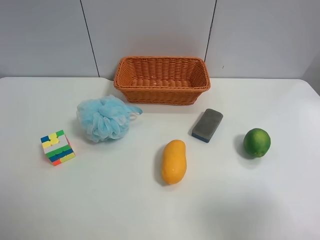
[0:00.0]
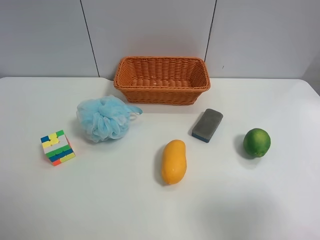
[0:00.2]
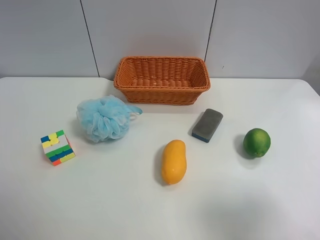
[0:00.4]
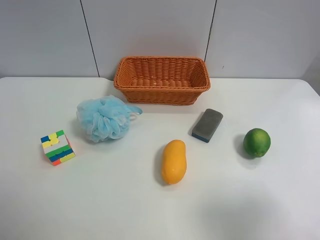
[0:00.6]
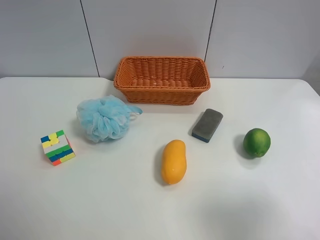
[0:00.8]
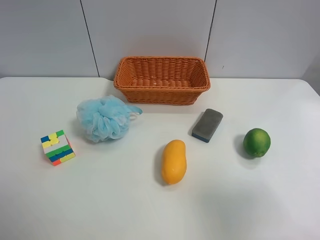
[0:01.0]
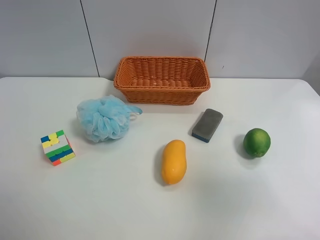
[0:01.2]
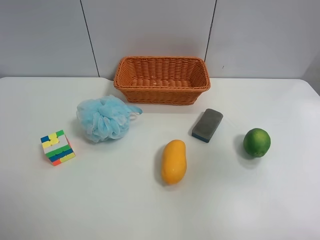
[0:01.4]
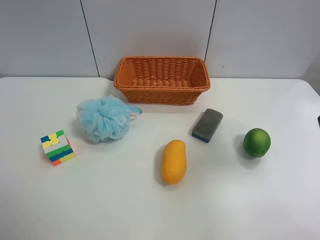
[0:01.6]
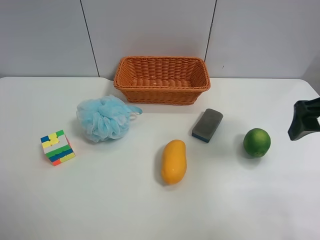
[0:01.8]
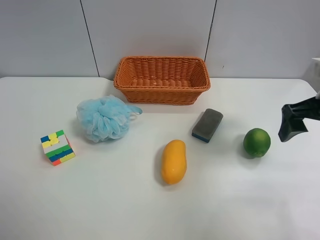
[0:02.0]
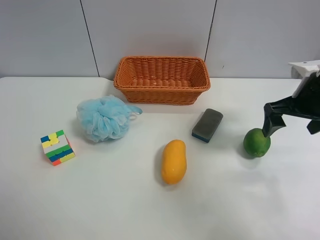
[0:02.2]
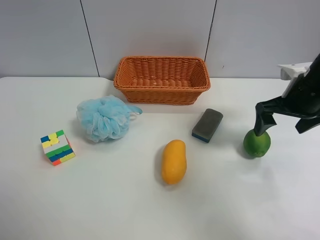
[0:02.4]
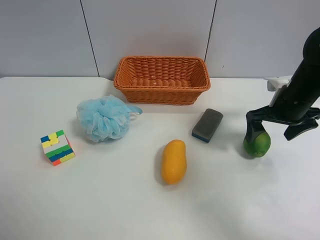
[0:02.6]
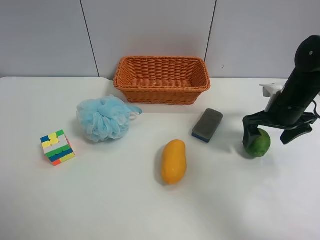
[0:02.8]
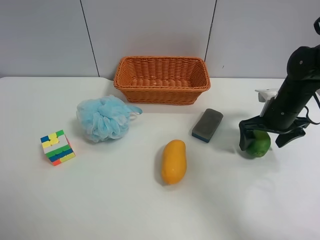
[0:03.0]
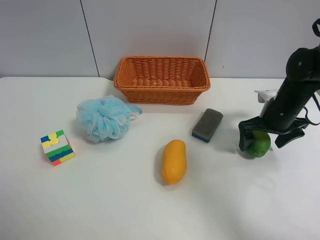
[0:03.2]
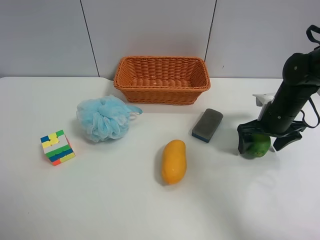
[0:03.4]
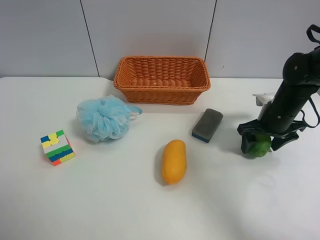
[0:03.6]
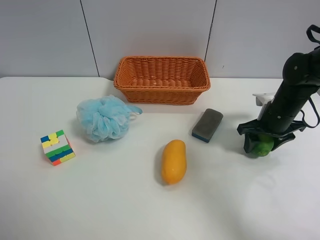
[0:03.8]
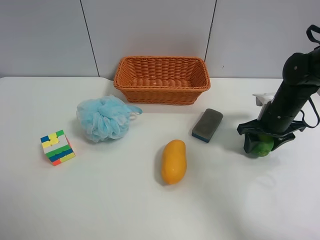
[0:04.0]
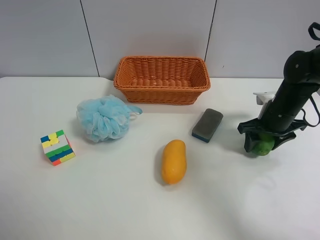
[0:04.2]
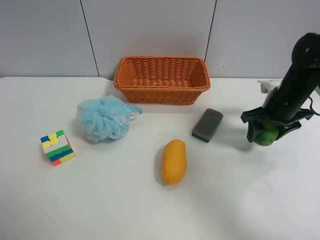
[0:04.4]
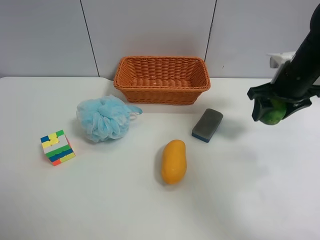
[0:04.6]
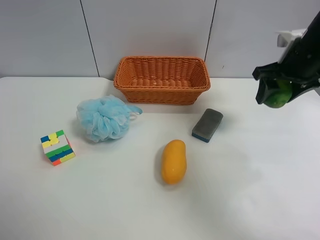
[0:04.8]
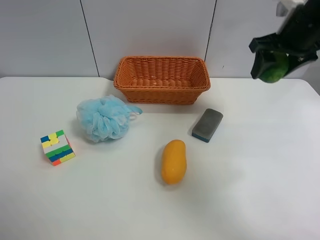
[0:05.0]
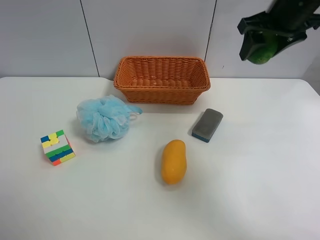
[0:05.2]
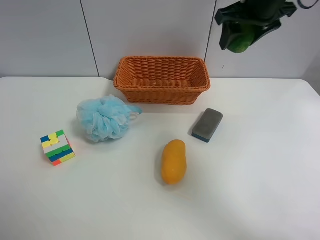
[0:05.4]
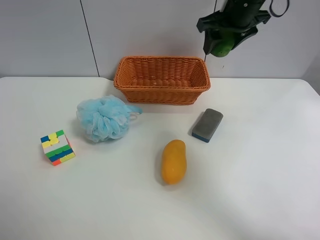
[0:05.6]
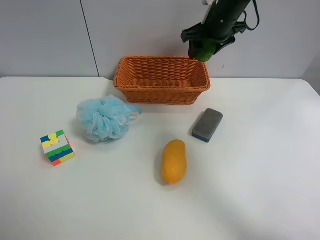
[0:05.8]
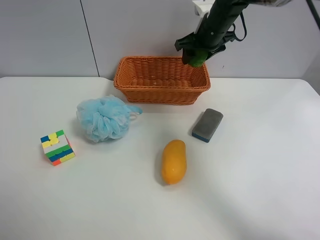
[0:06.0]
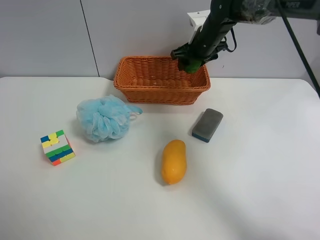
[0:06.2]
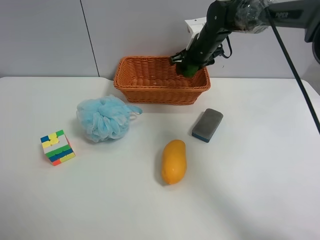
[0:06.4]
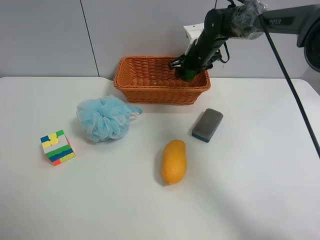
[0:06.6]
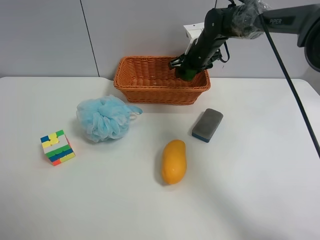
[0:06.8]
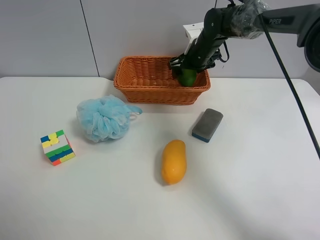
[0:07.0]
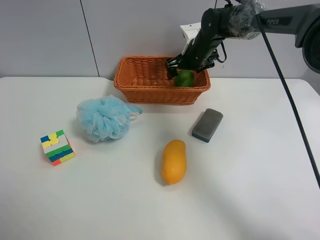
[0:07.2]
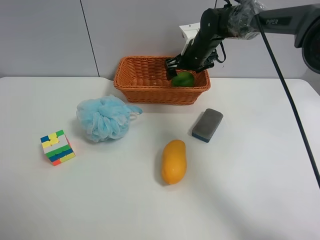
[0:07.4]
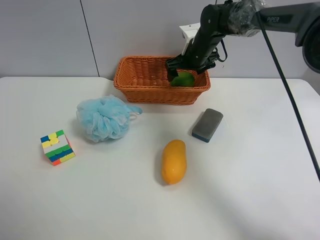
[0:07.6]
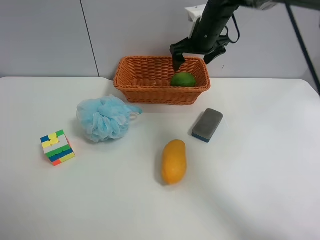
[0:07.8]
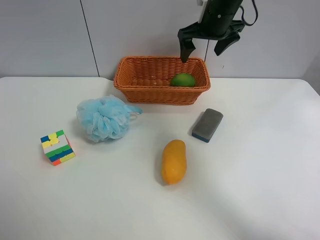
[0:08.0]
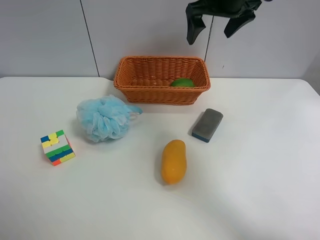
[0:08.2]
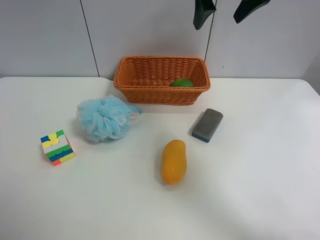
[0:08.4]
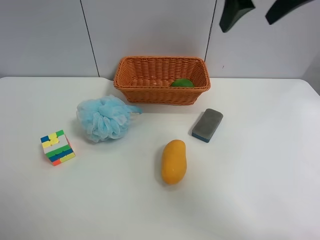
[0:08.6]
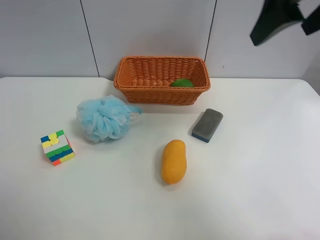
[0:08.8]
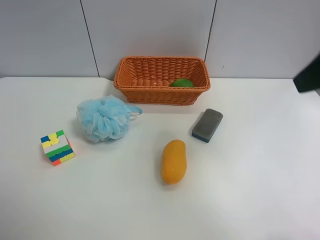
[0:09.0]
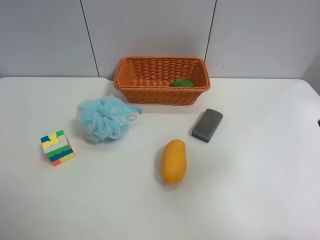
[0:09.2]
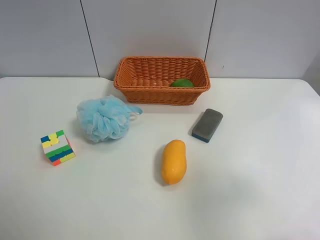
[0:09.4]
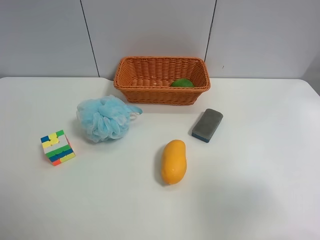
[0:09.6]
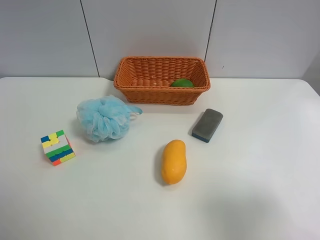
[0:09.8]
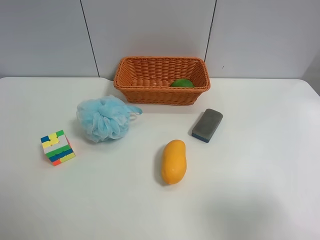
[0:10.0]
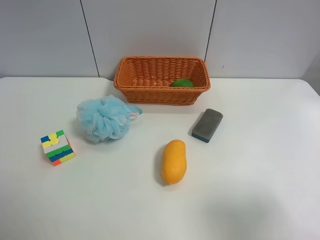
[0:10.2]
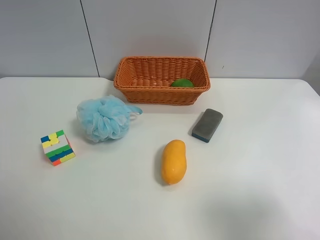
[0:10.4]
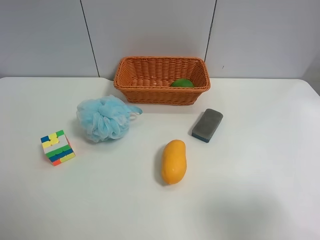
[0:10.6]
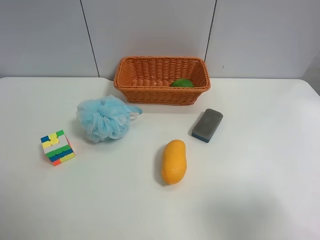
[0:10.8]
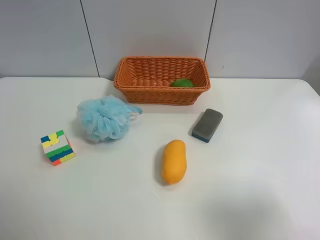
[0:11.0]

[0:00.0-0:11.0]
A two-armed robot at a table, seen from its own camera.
Task of the whole recording: Randomly grab green lemon or mangoes from the table and put them in a basket.
Step, 0.0 to 3.8 s: Grasp the Lemon with the right gripper.
Step, 4.0 to 8.0 s: Place the Lemon into the basket with the right gripper.
0.0 to 1.6 s: The right gripper is displaced forward by about 15 cm.
1.6 to 3.2 s: The right gripper heads downward and forward, covering approximately 25 cm.
3.2 to 4.8 s: The right gripper is displaced upward by roughly 15 cm, and closes its fingers.
4.8 to 6.2 s: The right gripper goes some 20 cm forward and to the left.
6.2 to 7.8 s: The right gripper is displaced upward by roughly 5 cm, and opens its fingers.
7.8 to 9.4 s: The right gripper is displaced backward by roughly 40 cm.
9.4 to 11.0 s: The right gripper changes place by about 5 cm.

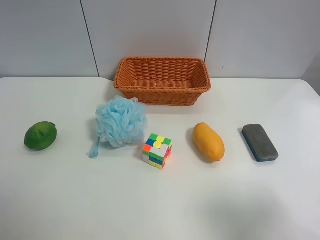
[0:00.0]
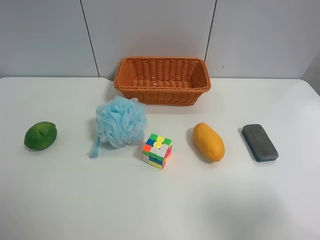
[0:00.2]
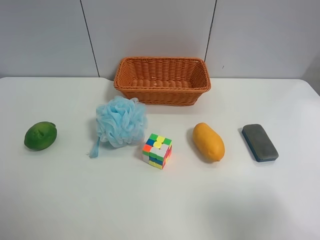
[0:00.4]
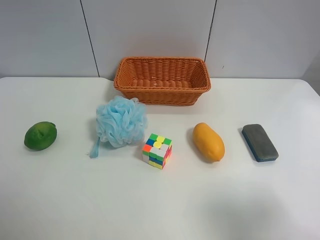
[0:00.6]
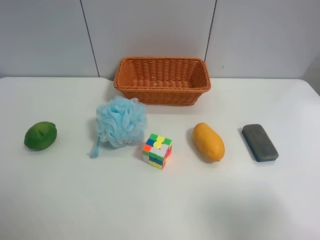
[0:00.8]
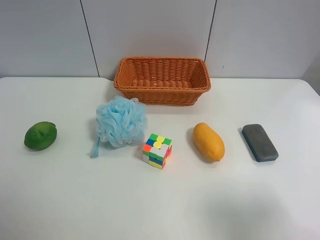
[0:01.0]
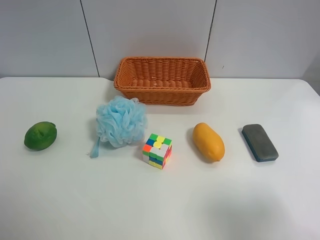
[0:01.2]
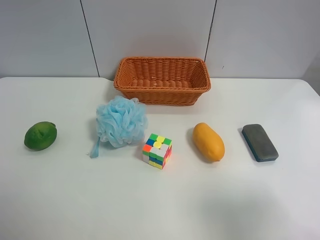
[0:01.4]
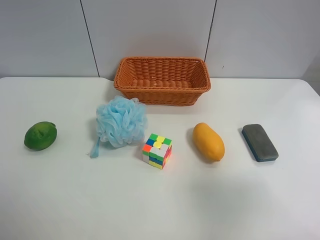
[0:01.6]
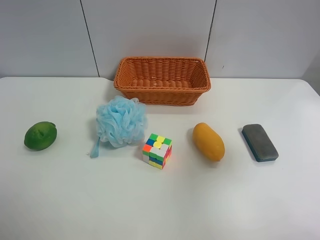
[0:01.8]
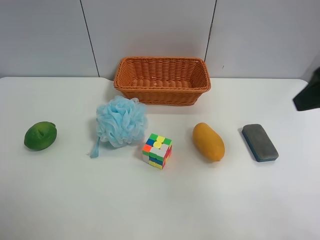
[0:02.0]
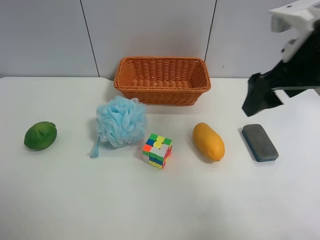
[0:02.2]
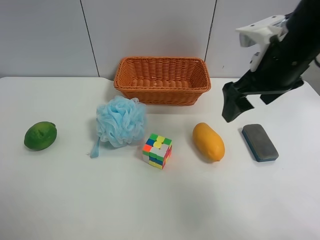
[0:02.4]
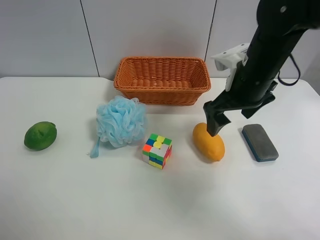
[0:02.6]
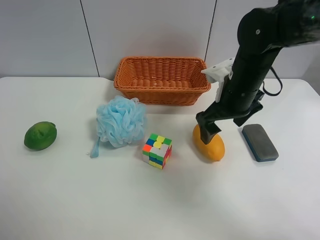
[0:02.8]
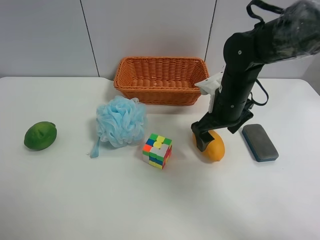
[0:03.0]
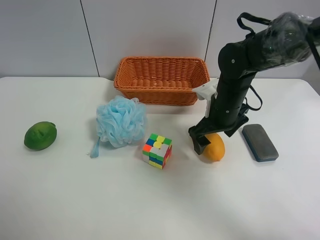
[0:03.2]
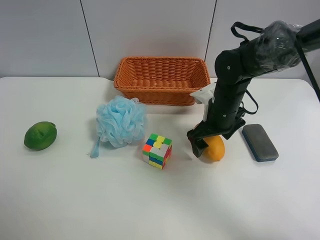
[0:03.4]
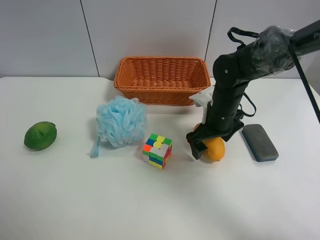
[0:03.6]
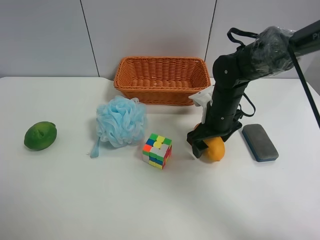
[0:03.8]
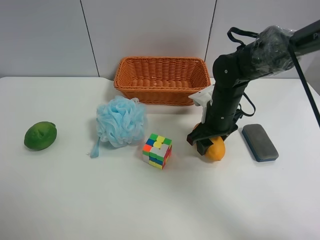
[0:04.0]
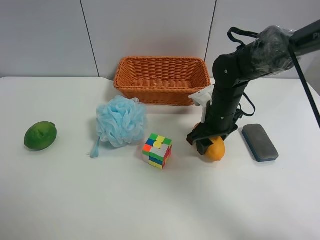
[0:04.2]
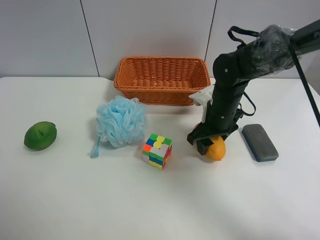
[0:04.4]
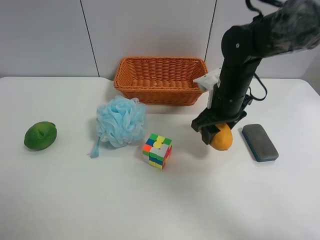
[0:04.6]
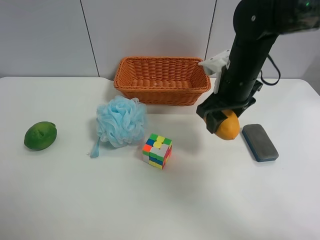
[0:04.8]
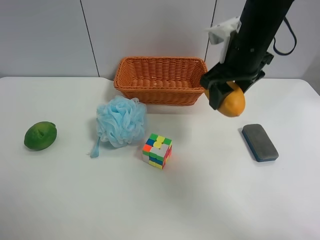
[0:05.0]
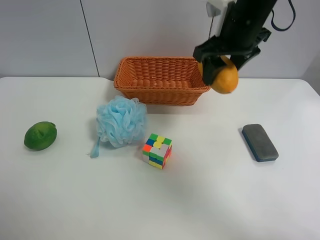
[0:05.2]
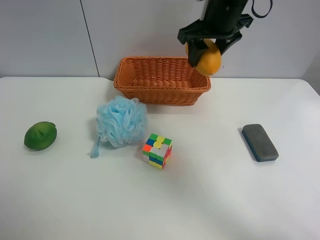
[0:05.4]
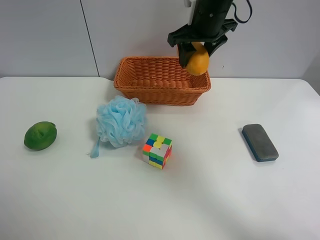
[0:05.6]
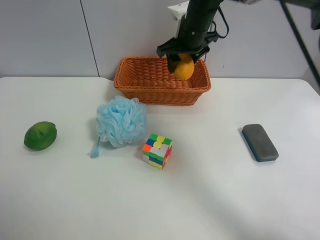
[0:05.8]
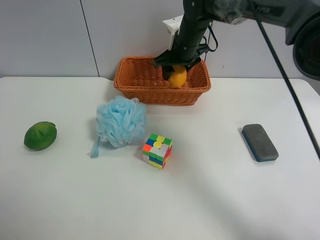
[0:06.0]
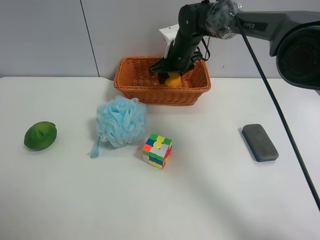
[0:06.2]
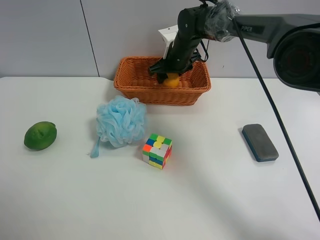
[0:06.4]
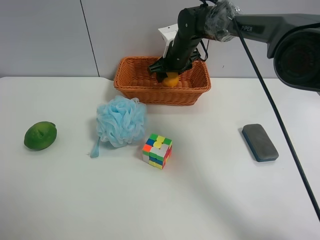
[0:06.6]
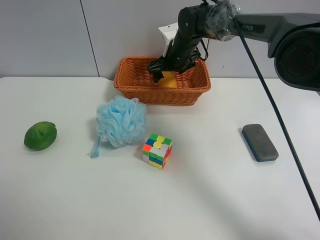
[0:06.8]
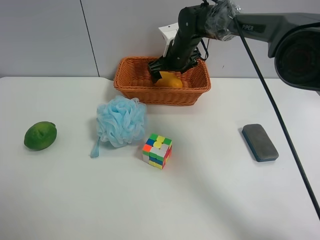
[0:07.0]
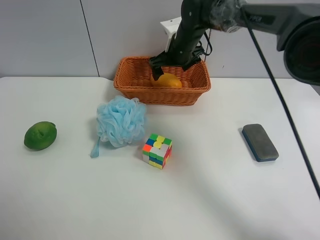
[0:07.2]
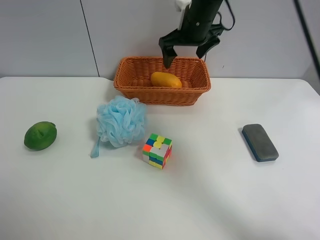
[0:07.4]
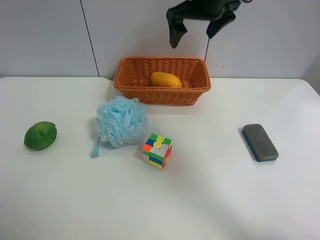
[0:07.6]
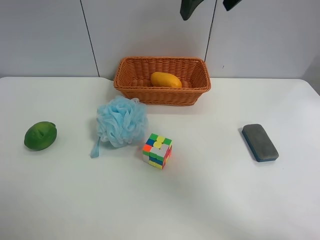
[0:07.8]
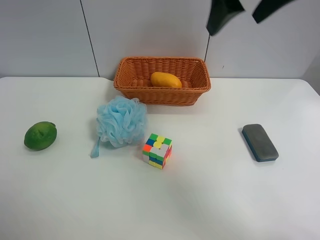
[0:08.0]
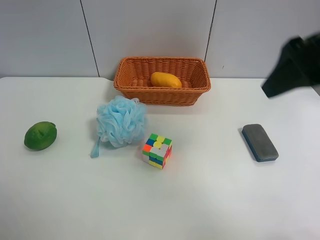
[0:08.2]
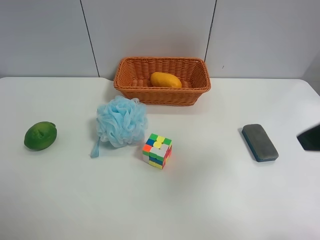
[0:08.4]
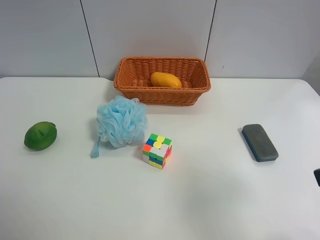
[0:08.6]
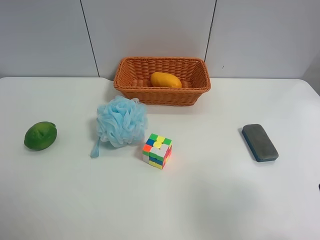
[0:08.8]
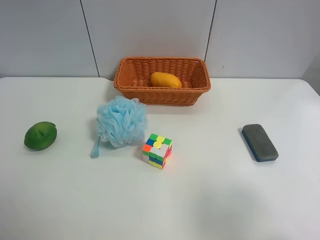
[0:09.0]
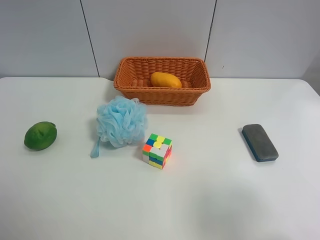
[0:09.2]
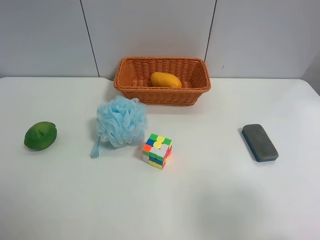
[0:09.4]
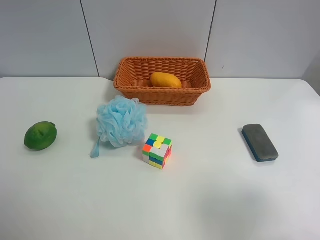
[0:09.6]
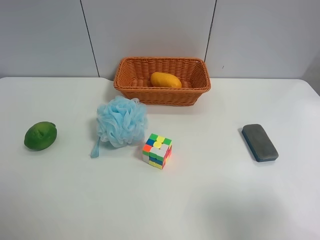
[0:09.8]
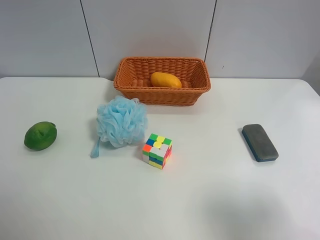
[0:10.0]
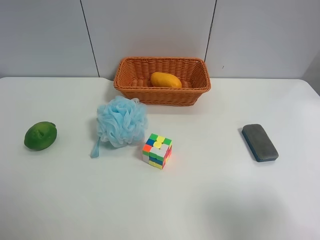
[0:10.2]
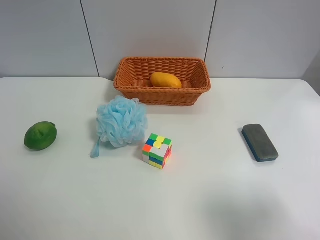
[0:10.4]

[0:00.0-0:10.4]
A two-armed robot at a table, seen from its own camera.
Task of the whole recording: Randomly grab green lemon or mangoes from the table and put them in a basket.
Step, 0.0 to 4.0 s: Grasp the mango with the right gripper.
Step, 4.2 to 7.4 s: Place the mango into the basket with the right gripper.
1.4 to 3.0 s: The right gripper shifts roughly 35 cm forward, to the left and downward.
3.0 to 4.4 s: The right gripper closes up.
4.4 to 6.0 s: The right gripper shifts some 20 cm forward, upward and to the left.
6.0 to 7.4 s: The right gripper goes about 10 cm upward, and opens.
7.4 to 9.0 s: The right gripper shifts roughly 40 cm backward and to the right.

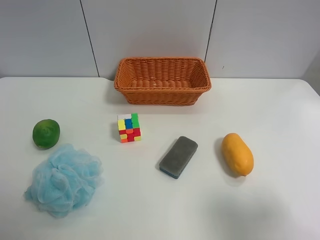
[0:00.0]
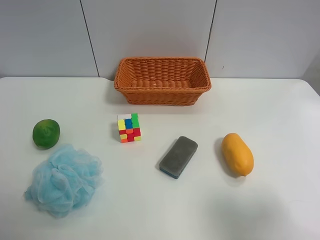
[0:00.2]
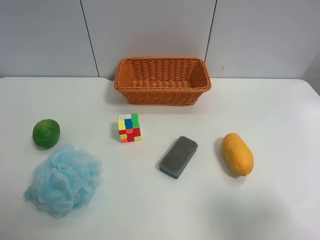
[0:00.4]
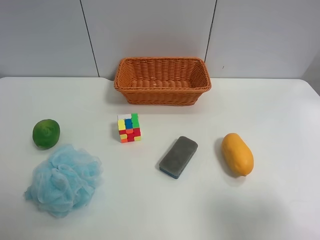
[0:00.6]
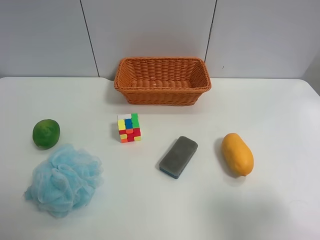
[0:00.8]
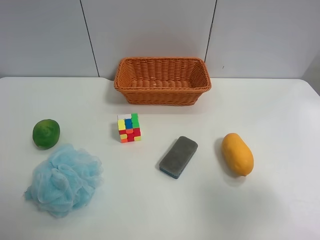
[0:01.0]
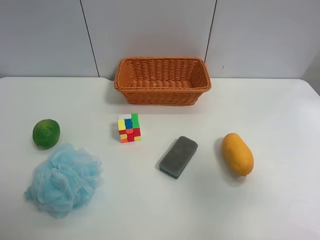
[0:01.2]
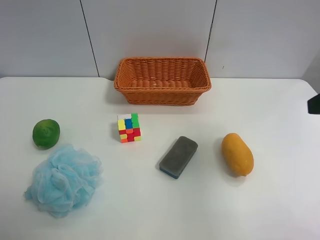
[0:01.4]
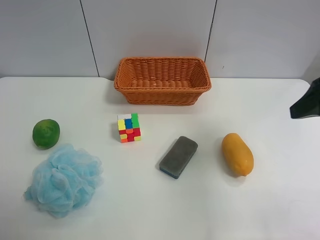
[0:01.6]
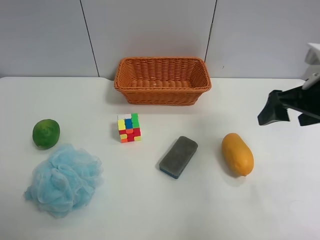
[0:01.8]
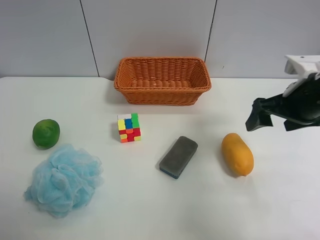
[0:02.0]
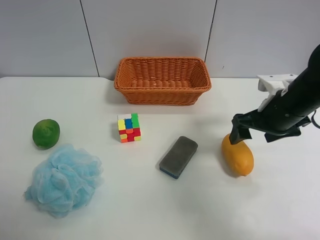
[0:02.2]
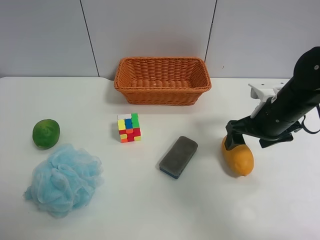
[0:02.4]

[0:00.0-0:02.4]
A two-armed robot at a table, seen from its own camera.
Task of the whole recording: Randomly grab green lemon or mangoes from the table and put them in a basket.
0.0 to 1.2 s: The right gripper moves forward, roughly 5 cm.
1.2 to 2.4 s: The right gripper is displaced forward and downward by about 25 cm.
